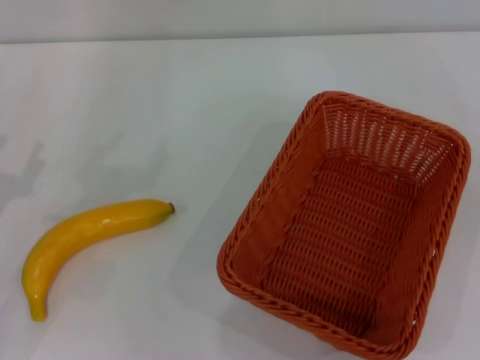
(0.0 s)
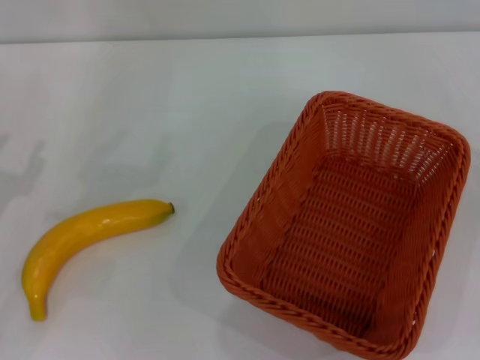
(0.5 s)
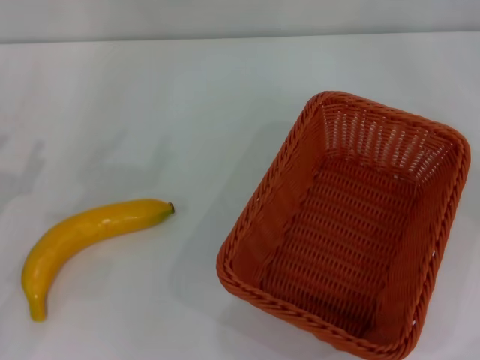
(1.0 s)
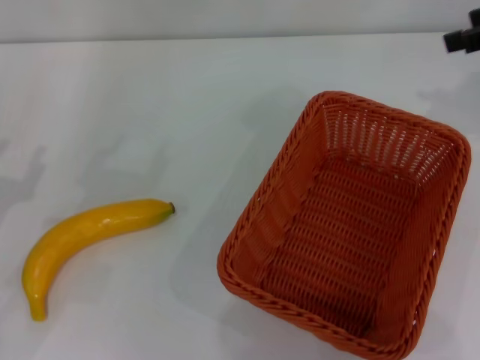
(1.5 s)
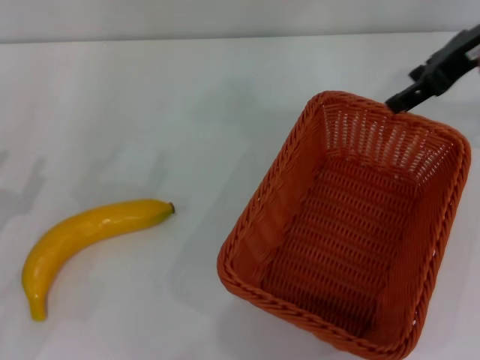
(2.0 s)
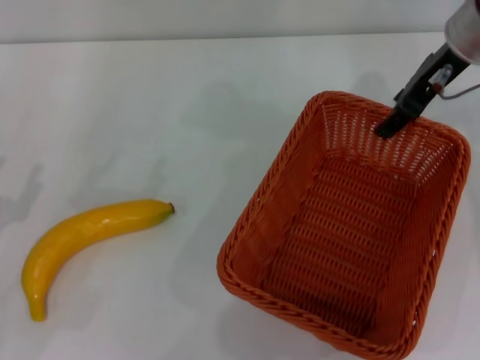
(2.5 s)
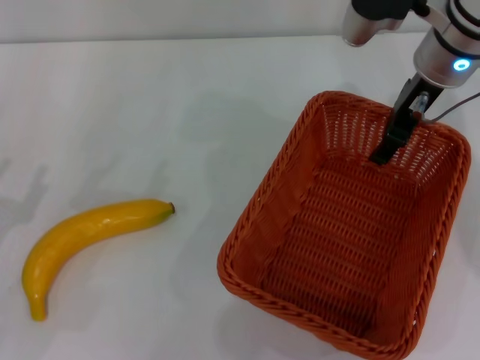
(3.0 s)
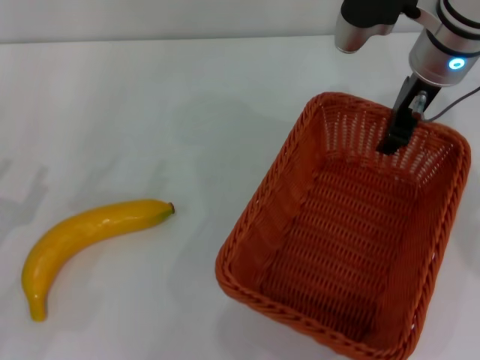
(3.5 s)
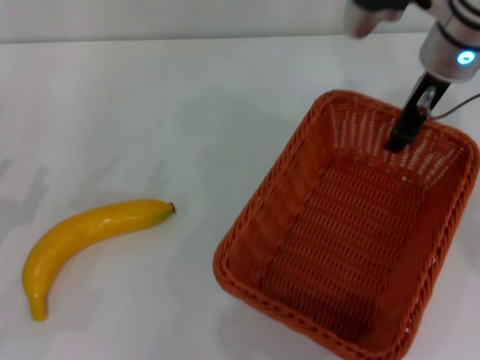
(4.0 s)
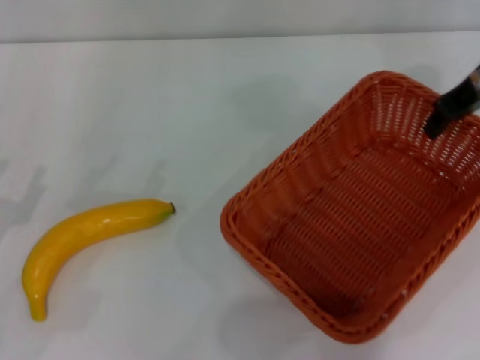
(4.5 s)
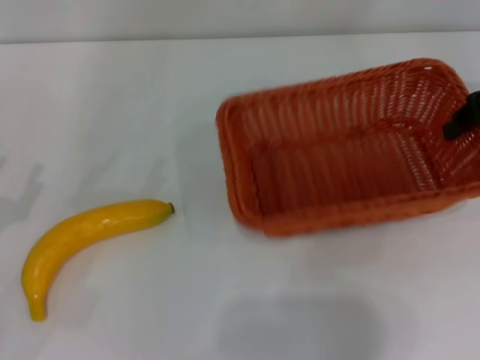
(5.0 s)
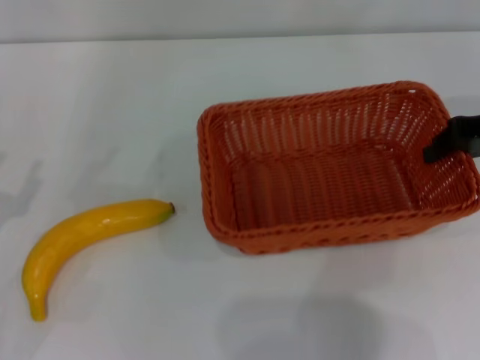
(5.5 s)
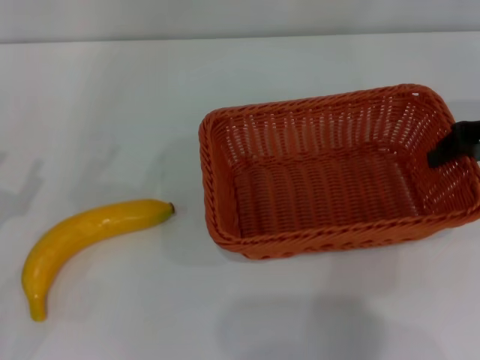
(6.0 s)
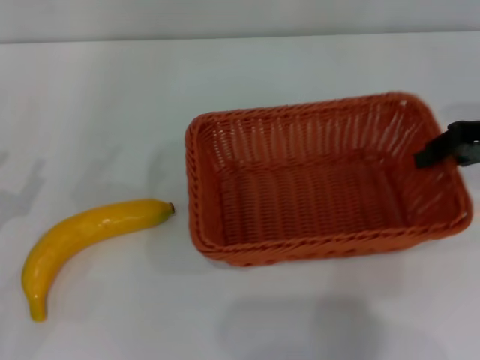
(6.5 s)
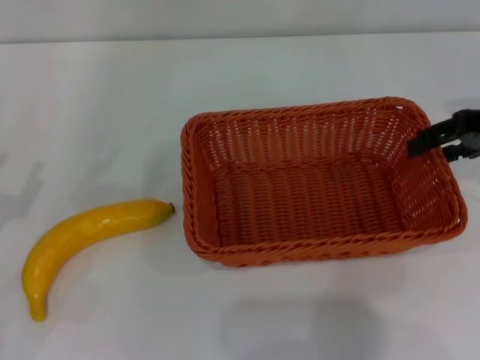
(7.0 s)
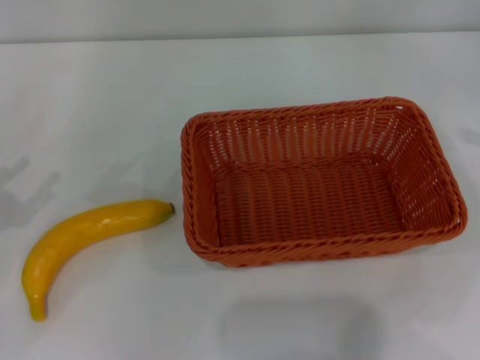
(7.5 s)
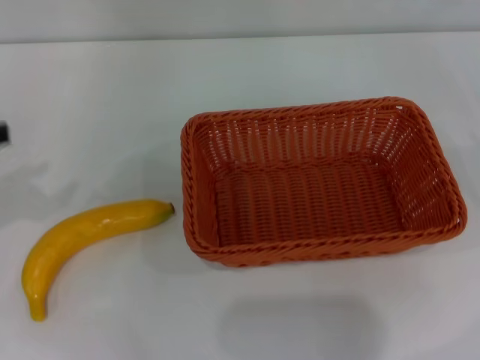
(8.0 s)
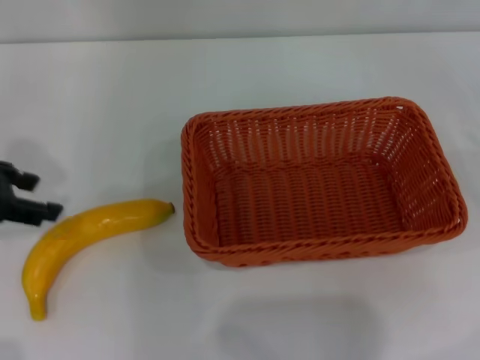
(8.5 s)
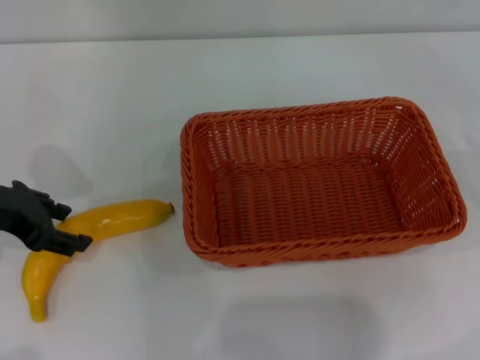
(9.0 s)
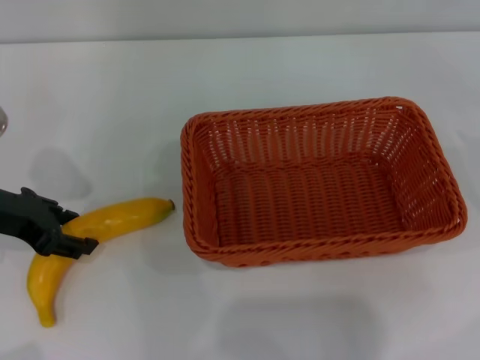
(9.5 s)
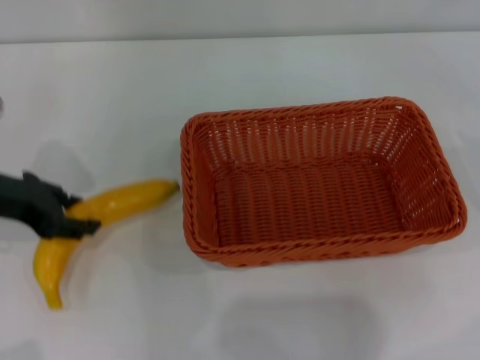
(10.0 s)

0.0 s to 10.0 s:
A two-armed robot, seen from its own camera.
Step, 0.0 to 4.5 s: Pick up the light basket with the right gripper.
Step, 5.0 to 7.0 s: Place the light basket in the center of view with the right gripper.
0.0 to 2.0 s: The right gripper is displaced upward, forward and to the left by roughly 35 cm.
2.0 to 4.0 s: The right gripper moves to the left, about 5 cm, and closes up.
4.0 to 6.0 s: The right gripper is displaced to the right and backward by roughly 15 cm.
6.0 to 8.0 s: The right gripper moves to the right and backward, approximately 15 cm, and opens its fingers. Meanwhile the left gripper shifts some 15 cm upward.
8.0 to 10.0 s: The left gripper goes some 10 cm to the right, forward and downward, and closes.

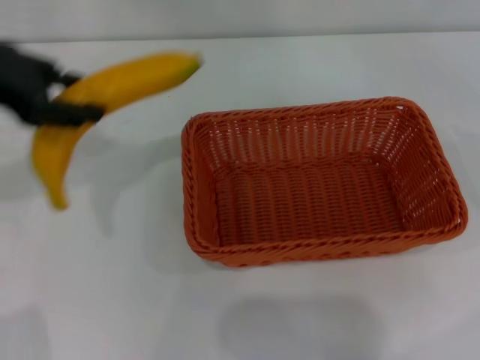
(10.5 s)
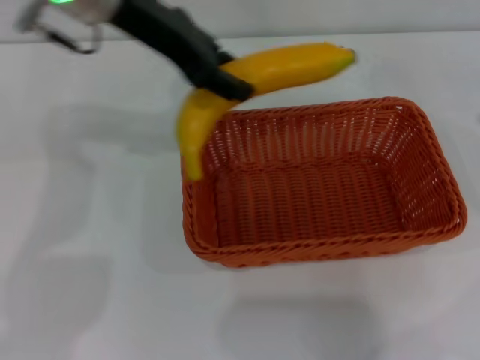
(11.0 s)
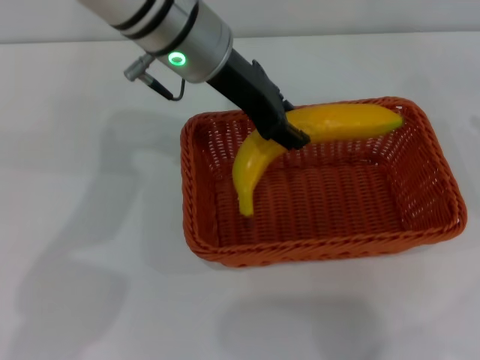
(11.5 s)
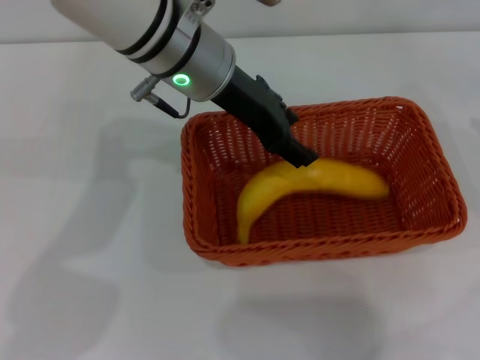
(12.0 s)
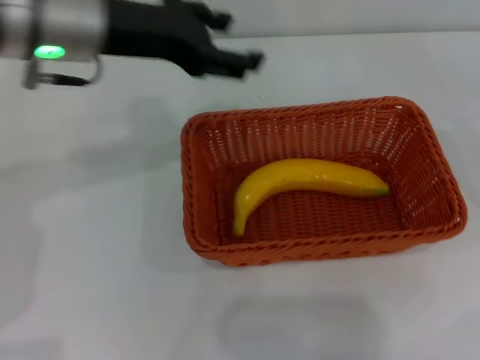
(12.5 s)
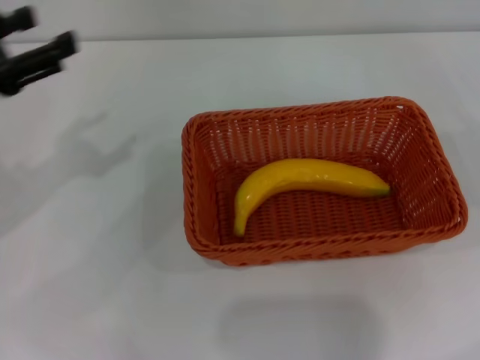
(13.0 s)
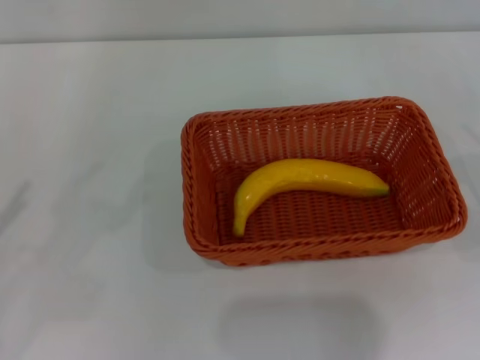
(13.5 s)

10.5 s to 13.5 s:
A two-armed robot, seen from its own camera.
Step, 10.5 to 12.0 s: Place the banana into the light basket with the left gripper.
10.5 to 12.0 s: The left gripper shifts some 20 cm to the right.
12.0 to 13.5 s: The left gripper heads to the left and backward, covering some 40 cm, and opens up, while the right gripper heads downward and backward, covering roughly 10 cm.

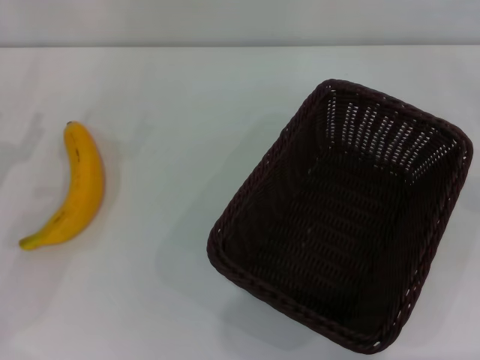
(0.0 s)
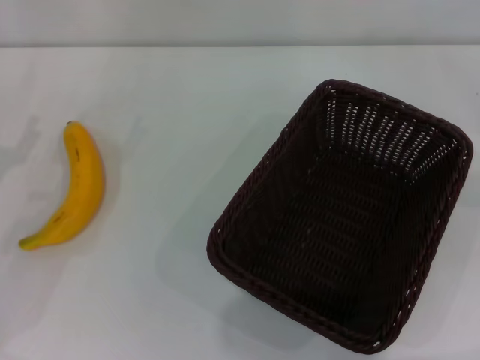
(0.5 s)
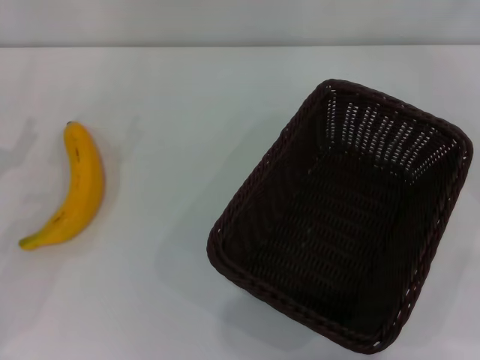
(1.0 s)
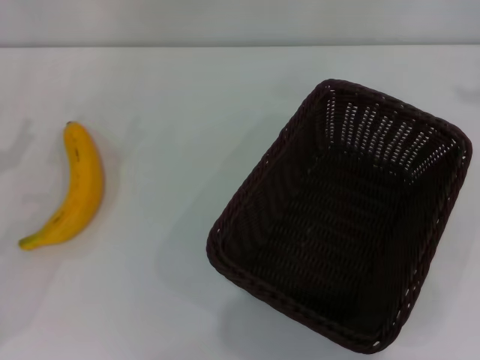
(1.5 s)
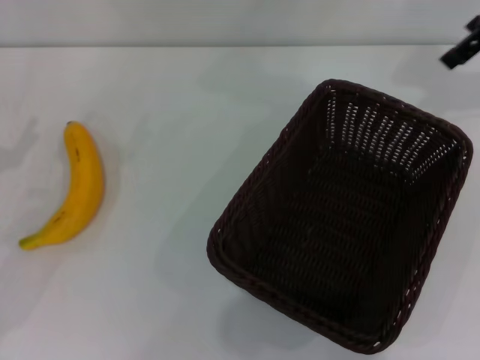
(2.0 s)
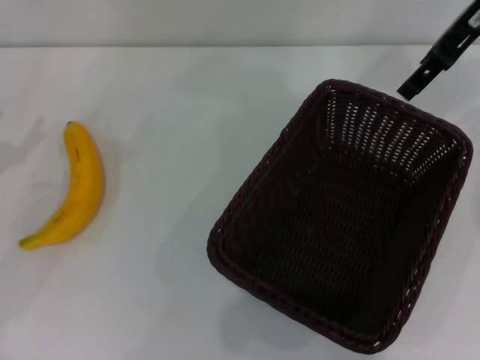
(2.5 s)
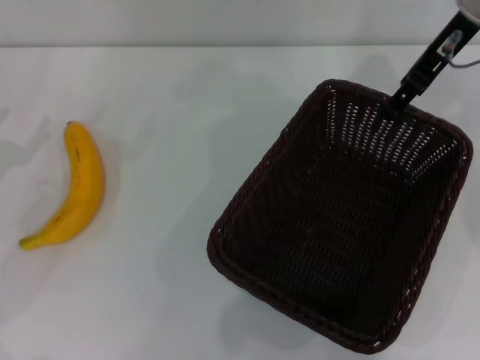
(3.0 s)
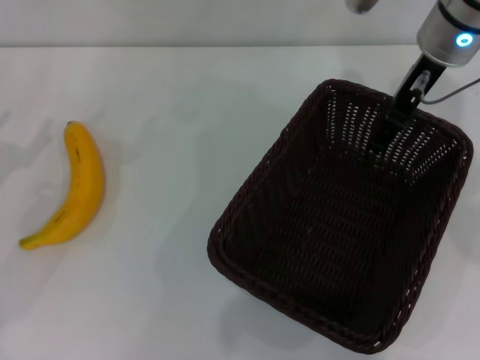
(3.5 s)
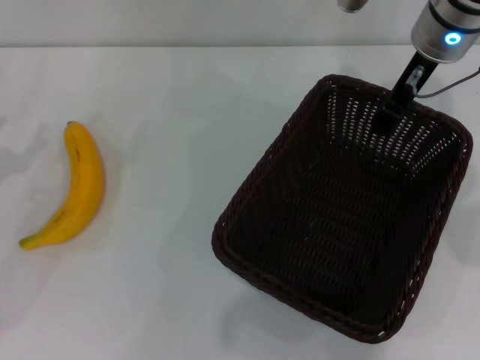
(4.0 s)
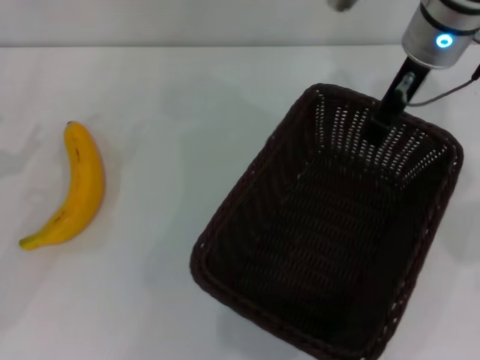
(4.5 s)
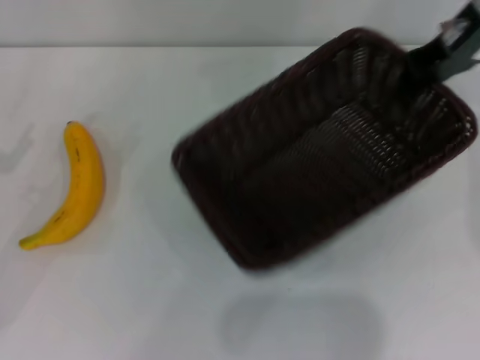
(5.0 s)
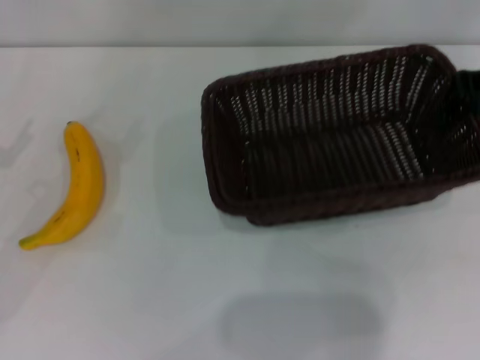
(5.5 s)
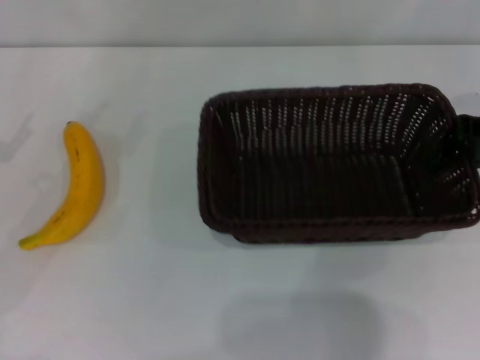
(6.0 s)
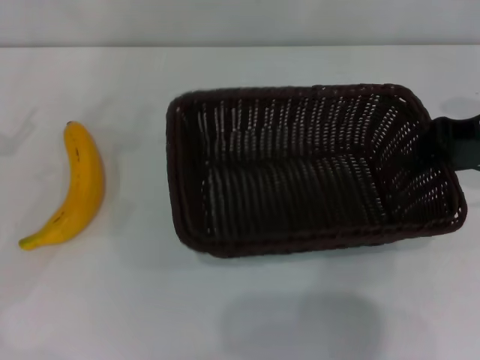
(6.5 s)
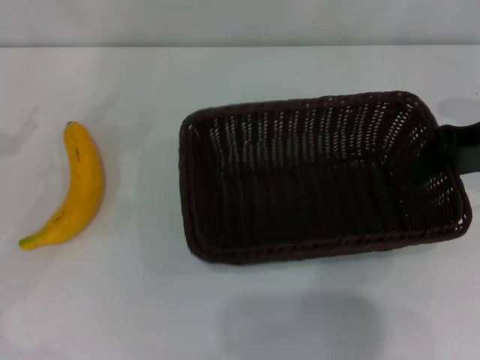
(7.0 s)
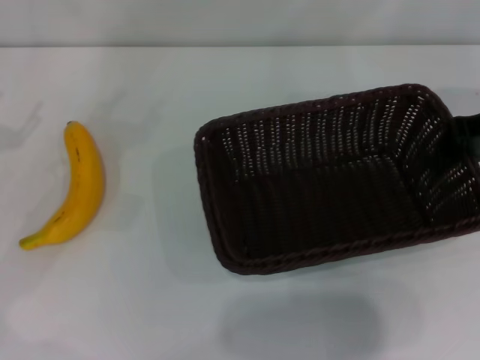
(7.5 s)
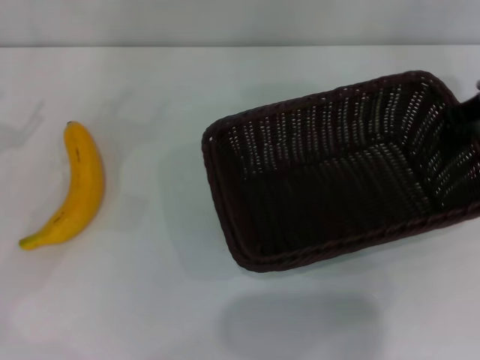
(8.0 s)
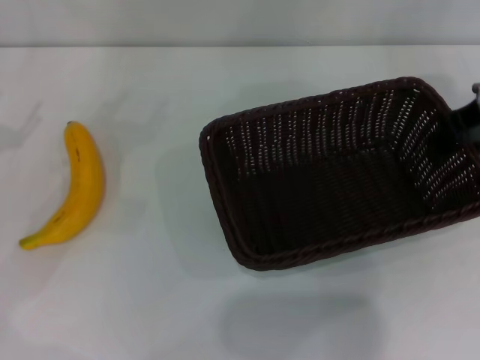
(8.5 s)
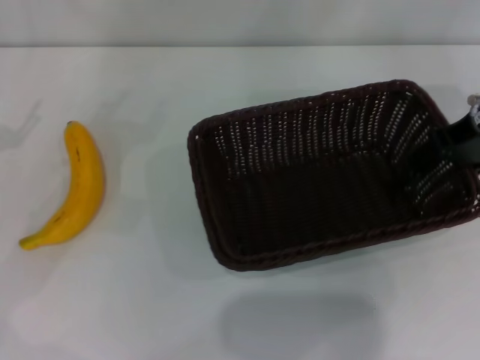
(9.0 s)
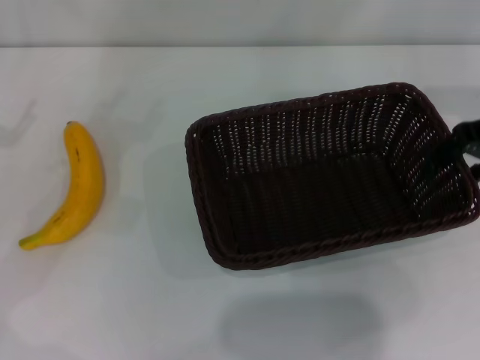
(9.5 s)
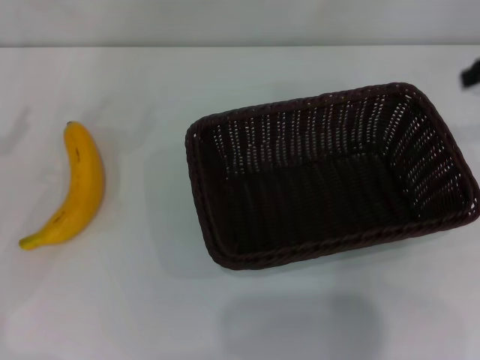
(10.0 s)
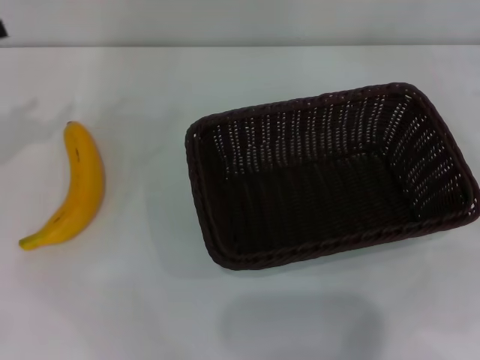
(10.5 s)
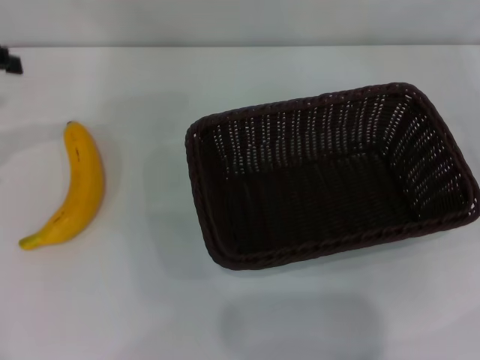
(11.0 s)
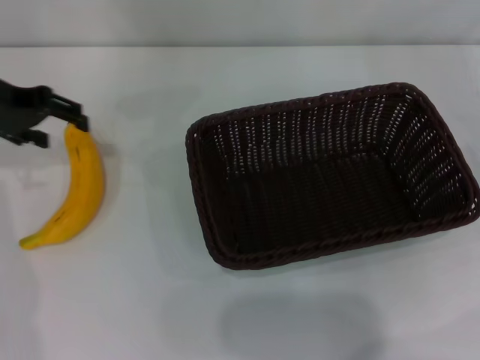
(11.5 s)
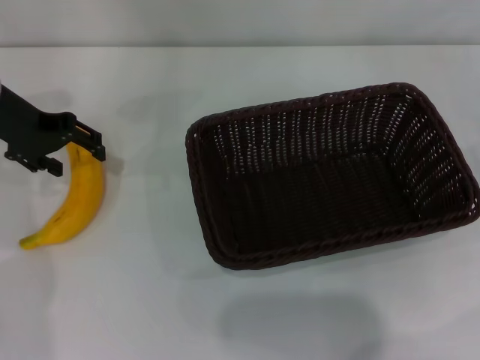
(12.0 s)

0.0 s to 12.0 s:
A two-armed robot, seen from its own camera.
Step, 0.0 to 4.5 s: Pick up the dark basket with the right gripper.
Step, 5.0 to 9.5 s: Place the dark basket in the center of view with the right gripper.
2.0 to 4.0 s: The right gripper moves to the left and downward, about 15 cm, and closes its fingers.
4.0 to 6.0 s: The right gripper is displaced to the right and backward by some 15 cm, and closes its fingers.
6.0 to 8.0 s: The right gripper travels to the left by approximately 5 cm.
8.0 to 10.0 s: The right gripper travels to the right by approximately 10 cm, and opens.
10.0 to 12.0 s: The left gripper is displaced to the right and forward by roughly 15 cm.
